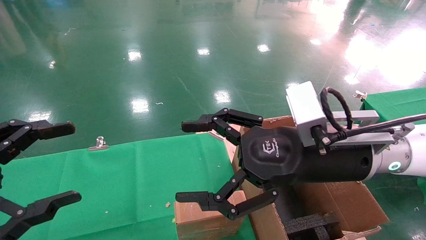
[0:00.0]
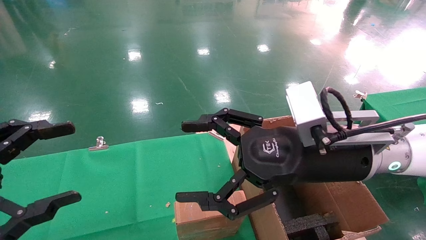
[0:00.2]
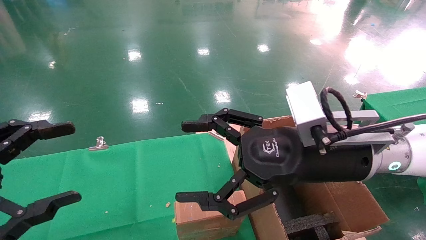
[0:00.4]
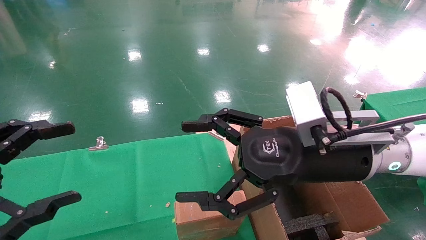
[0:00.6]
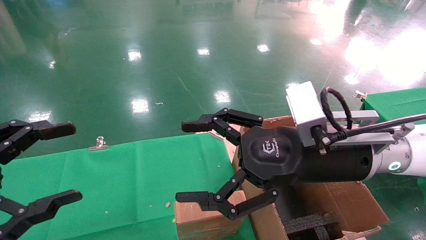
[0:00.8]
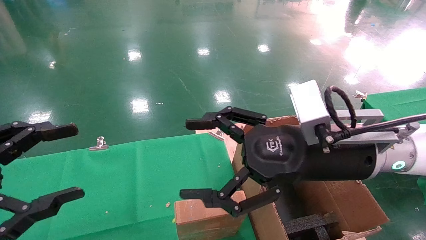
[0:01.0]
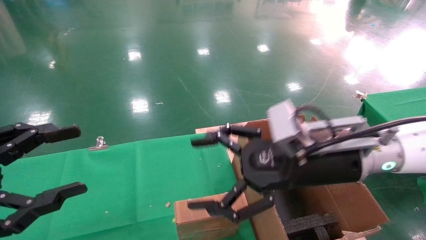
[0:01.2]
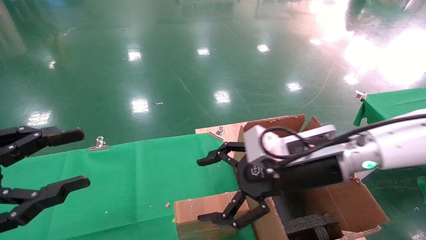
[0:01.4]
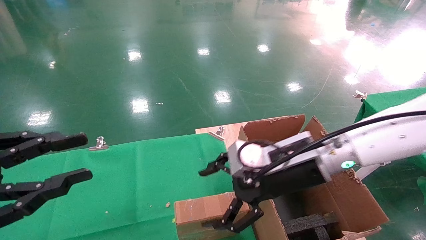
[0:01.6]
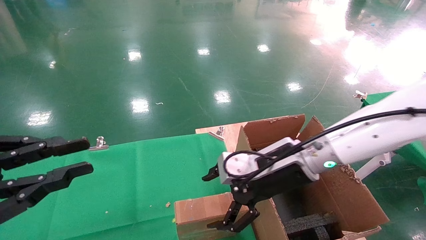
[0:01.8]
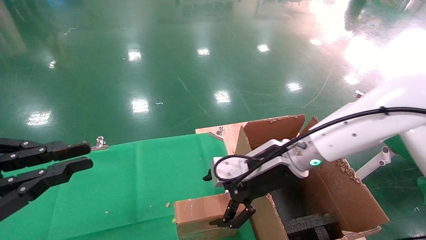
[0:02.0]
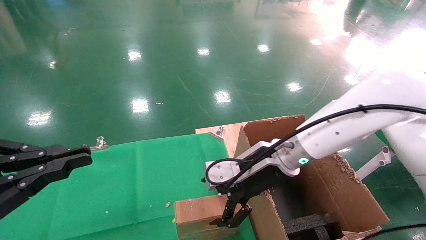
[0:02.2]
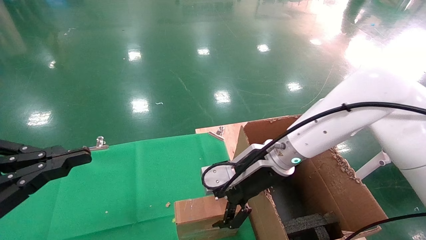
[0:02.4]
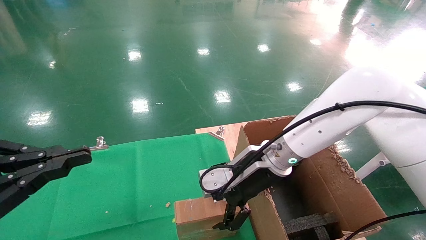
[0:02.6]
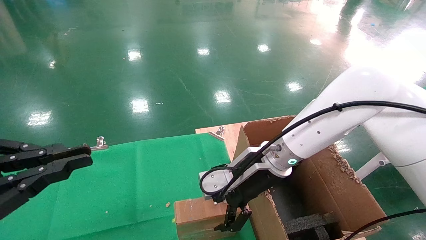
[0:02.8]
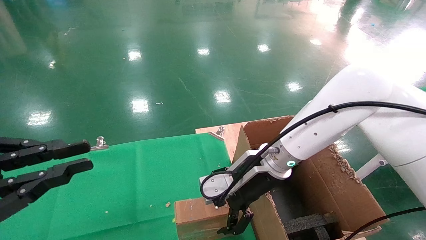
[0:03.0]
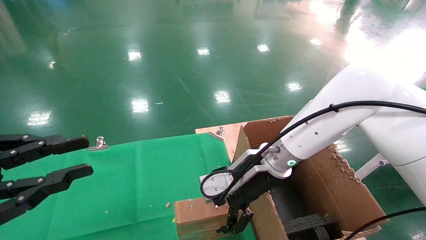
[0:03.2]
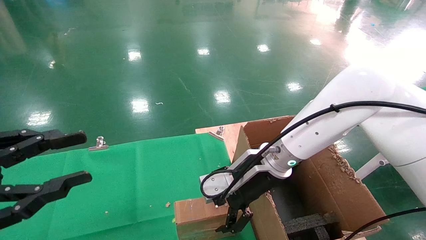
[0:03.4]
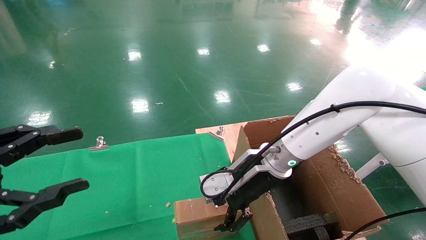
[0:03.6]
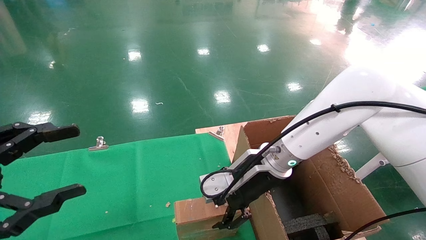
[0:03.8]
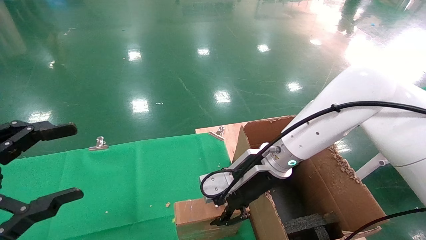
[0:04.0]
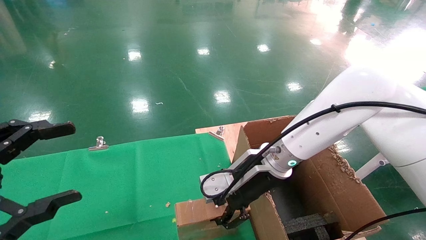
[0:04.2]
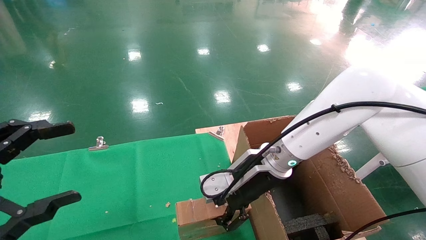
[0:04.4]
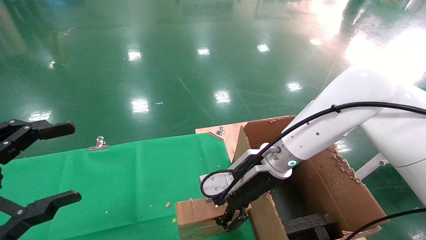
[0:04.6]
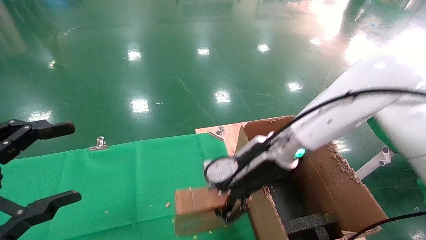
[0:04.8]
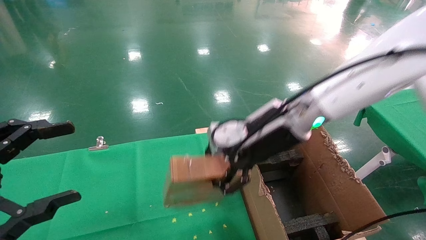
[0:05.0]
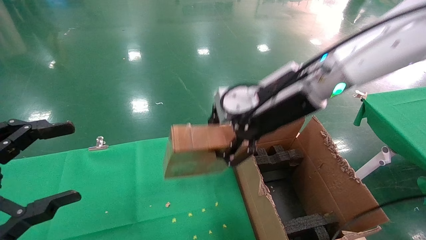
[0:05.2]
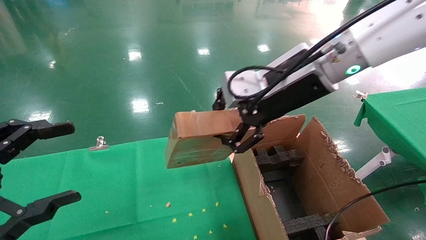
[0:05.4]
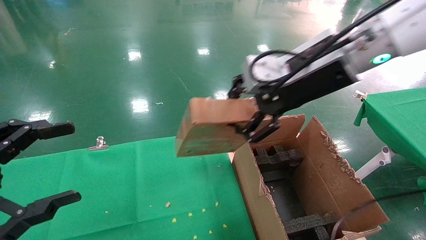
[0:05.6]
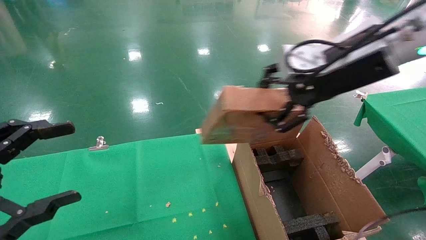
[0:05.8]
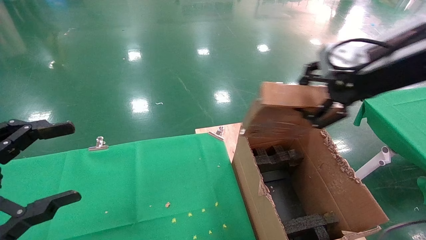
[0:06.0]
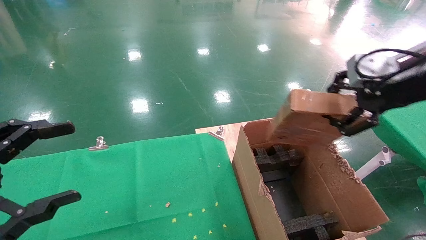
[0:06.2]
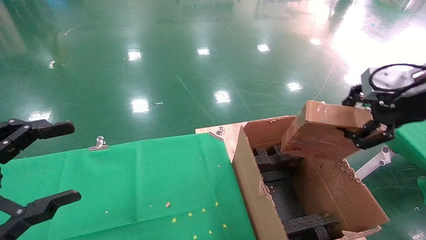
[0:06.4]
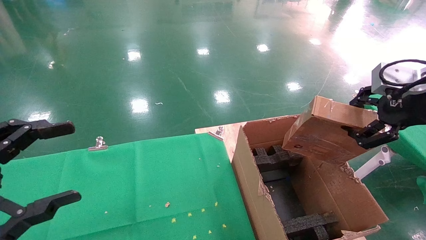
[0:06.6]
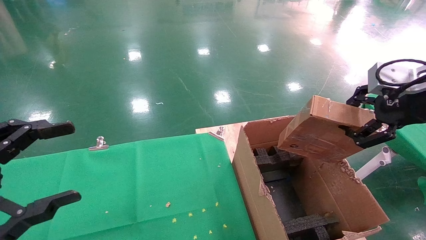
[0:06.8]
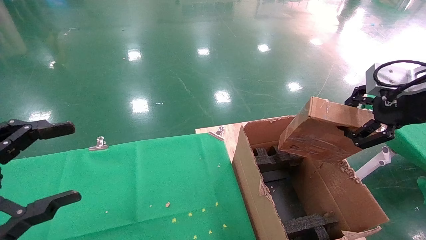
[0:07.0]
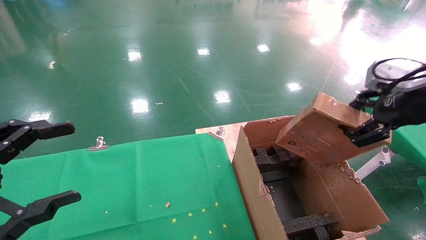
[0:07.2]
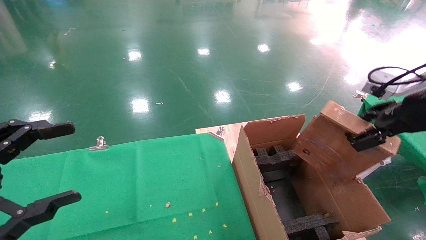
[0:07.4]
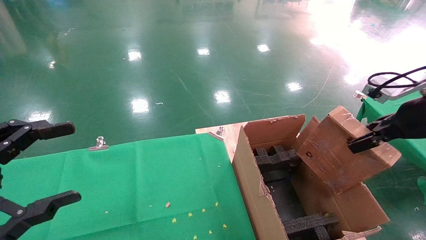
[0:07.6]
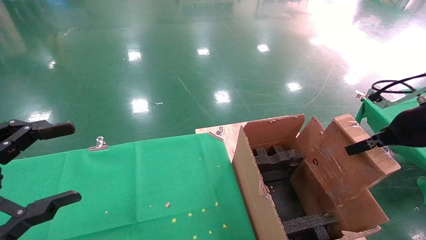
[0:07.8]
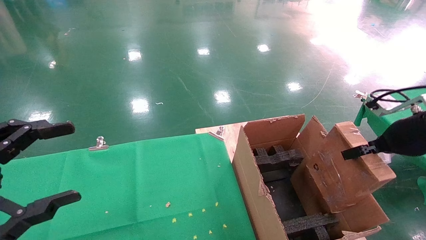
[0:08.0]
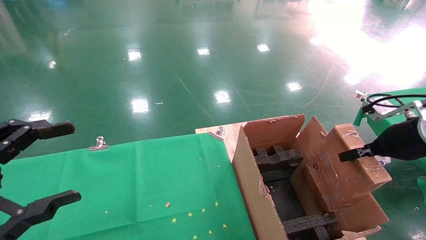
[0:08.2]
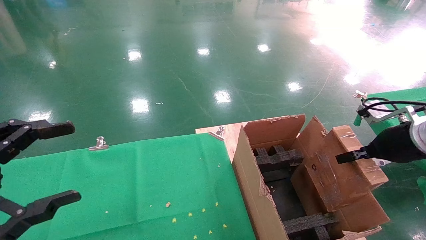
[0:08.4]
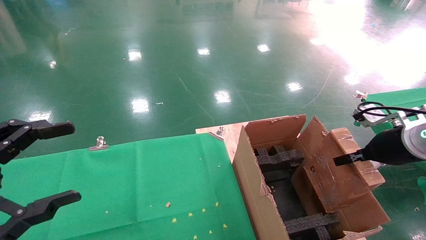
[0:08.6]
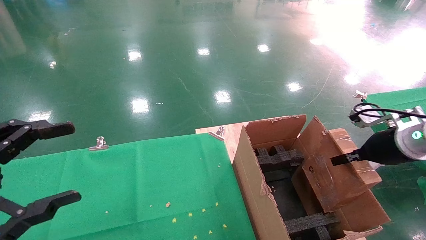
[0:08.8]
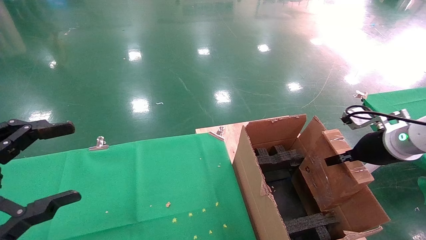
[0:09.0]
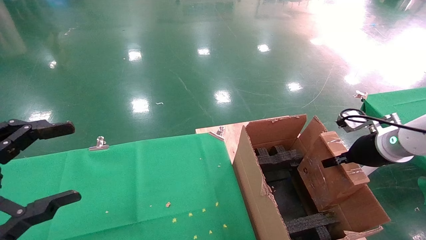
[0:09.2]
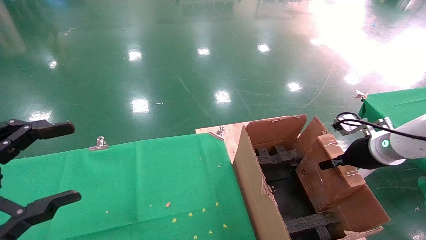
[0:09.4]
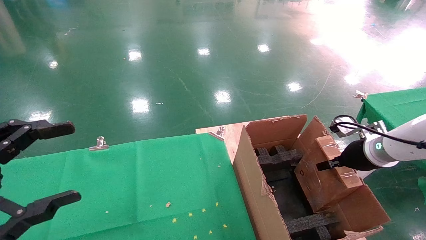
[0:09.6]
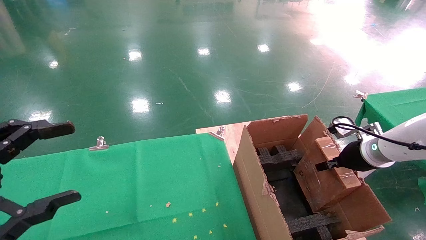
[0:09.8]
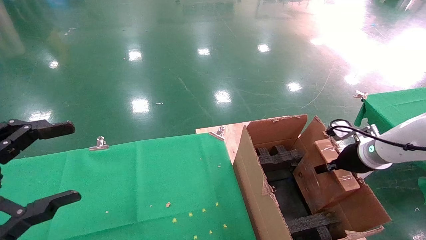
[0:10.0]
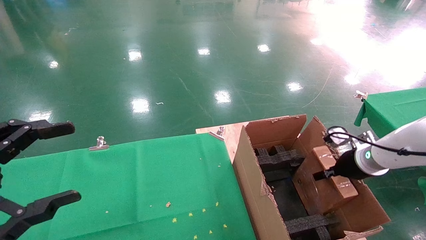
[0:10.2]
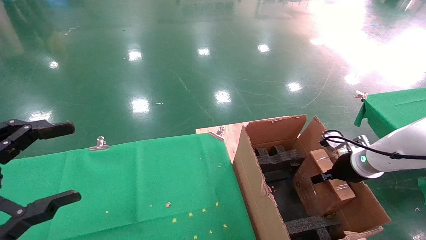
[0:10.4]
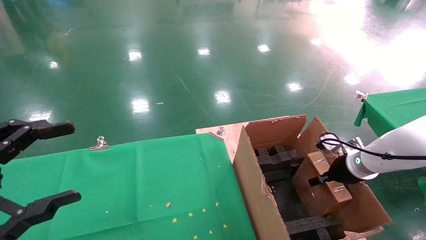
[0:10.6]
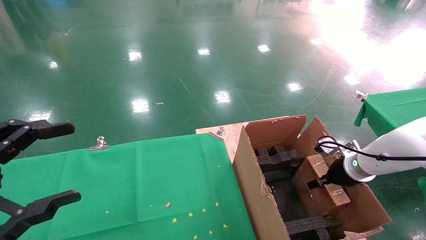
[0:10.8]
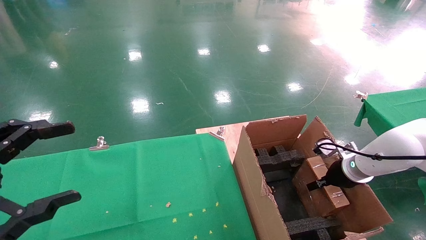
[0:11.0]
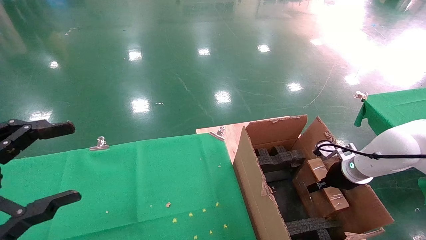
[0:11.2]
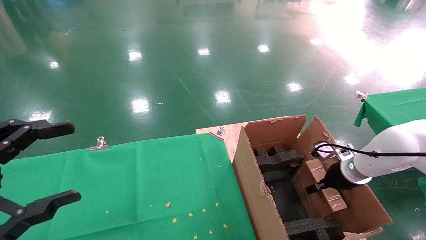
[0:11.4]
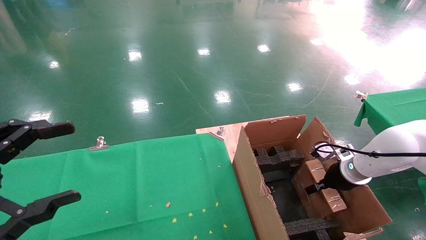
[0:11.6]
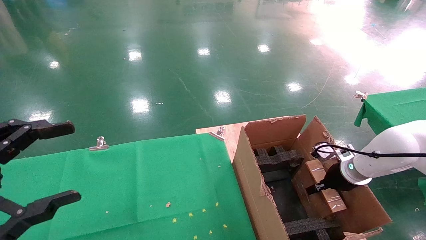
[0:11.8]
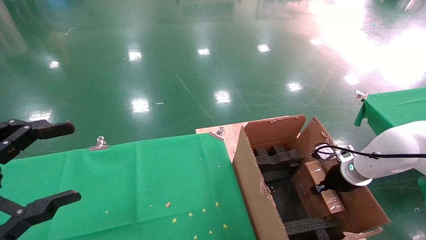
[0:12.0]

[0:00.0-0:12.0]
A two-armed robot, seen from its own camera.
Task of the whole recording: using a robotic arm to pick up a cardboard box and palace it the carton.
Step, 0:01.4 to 0:04.2: Pick up the mouse and the power cord paper box.
0:00.0 to 0:01.6: The right gripper is displaced forward by roughly 5 cm; the left gripper closes.
0:01.6 to 0:03.0: The left gripper closes up. Meanwhile the right gripper heads forward, covering roughly 5 cm.
0:03.0 to 0:04.4: The left gripper opens. The right gripper closes its fingers.
0:04.4 to 0:06.0: The right gripper goes about 25 cm upward and to the right.
0:06.0 to 0:07.6: The right gripper heads to the right and downward, covering some 15 cm.
0:07.6 to 0:09.0: The right gripper is displaced downward and forward by some 10 cm.
0:09.0 to 0:10.4: The right gripper heads downward, covering roughly 10 cm.
0:10.4 to 0:12.0: The grippers stay close to where they were, moving slightly.

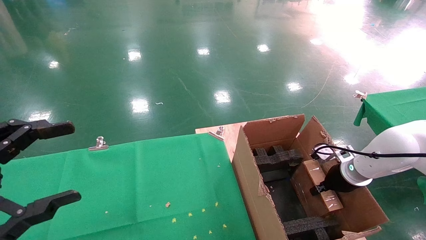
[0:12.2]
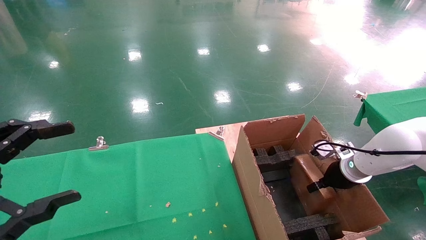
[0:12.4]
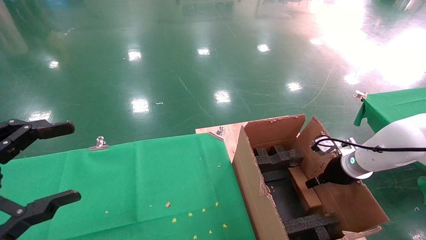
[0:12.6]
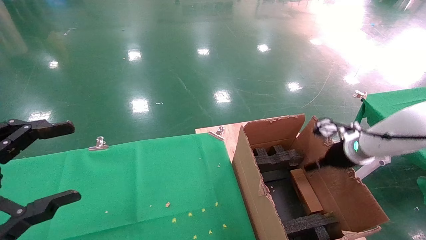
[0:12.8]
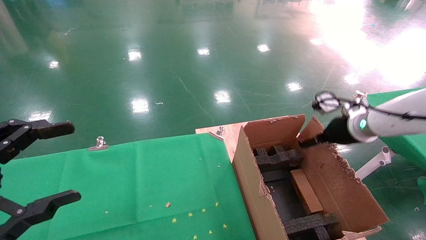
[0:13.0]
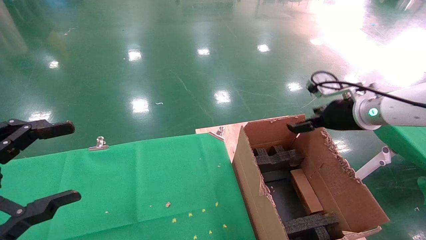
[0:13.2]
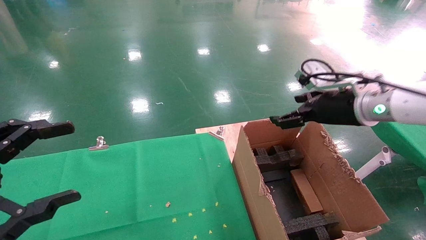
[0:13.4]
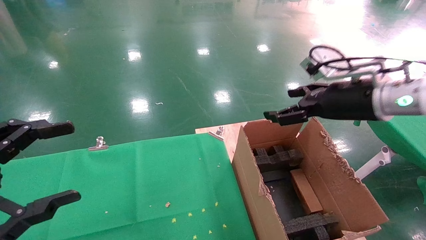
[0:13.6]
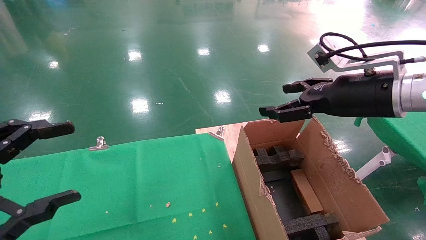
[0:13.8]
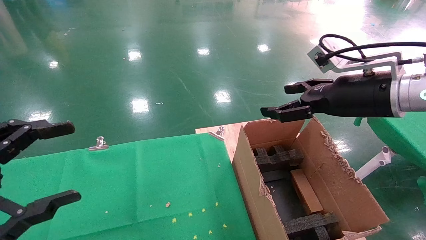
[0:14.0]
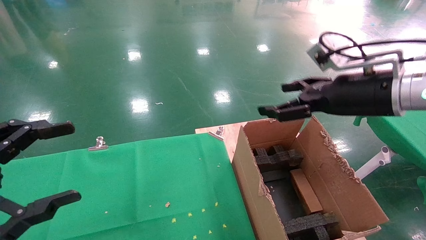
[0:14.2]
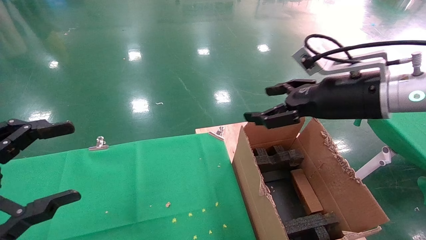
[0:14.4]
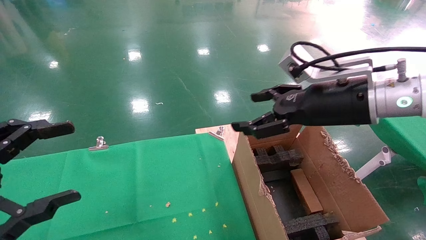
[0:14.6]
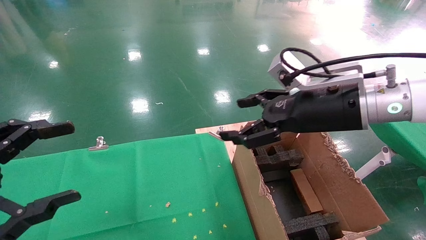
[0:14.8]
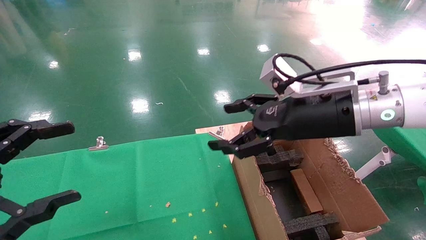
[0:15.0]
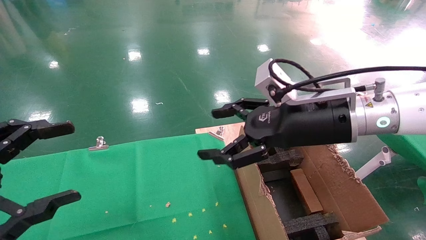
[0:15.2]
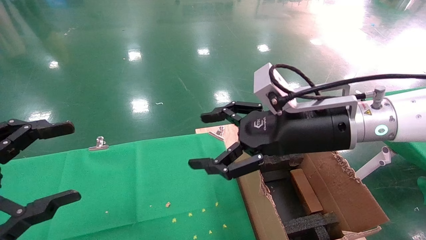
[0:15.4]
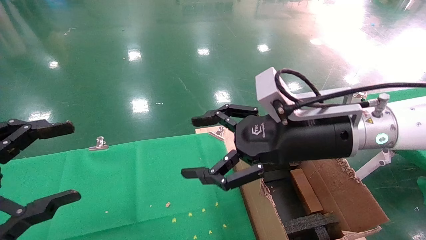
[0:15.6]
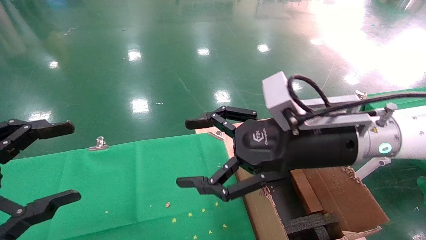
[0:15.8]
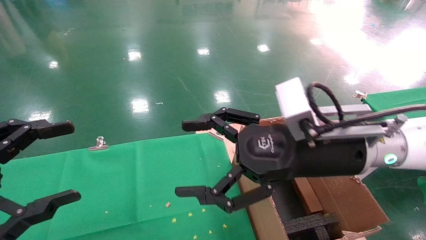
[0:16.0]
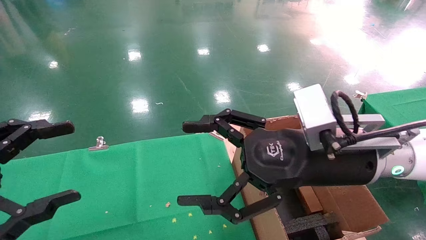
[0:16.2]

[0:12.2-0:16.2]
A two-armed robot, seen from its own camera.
Task of the whole recording: using a robotic arm to pick up a cardboard box and palace it the carton.
0:12.2 to 0:13.6: The right gripper moves upward, approximately 20 cm, and opens up.
0:13.6 to 0:14.8: The right gripper moves to the left, approximately 10 cm.
0:14.8 to 0:16.2: The right gripper shifts by about 5 cm.
